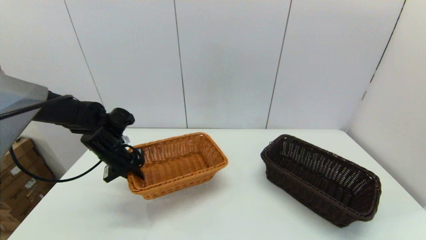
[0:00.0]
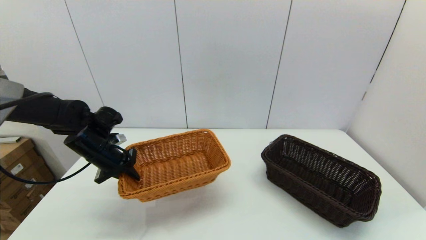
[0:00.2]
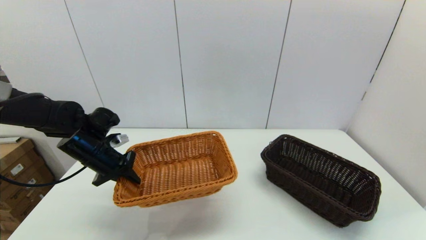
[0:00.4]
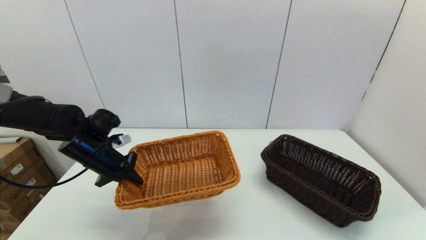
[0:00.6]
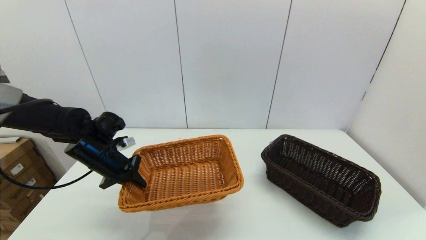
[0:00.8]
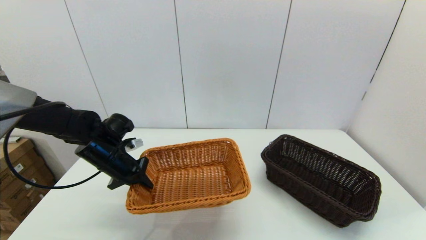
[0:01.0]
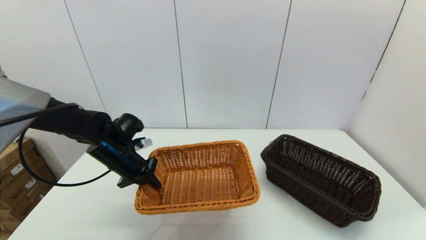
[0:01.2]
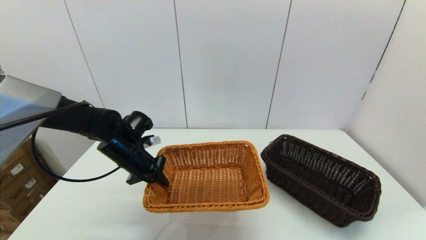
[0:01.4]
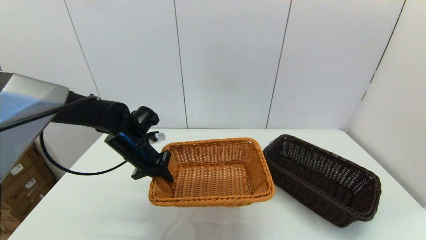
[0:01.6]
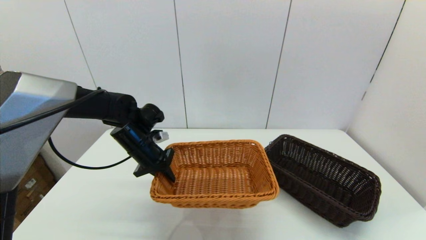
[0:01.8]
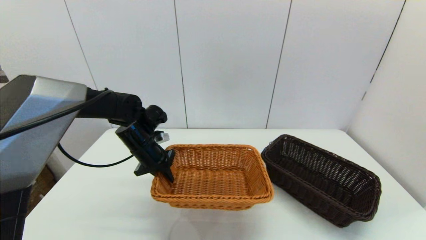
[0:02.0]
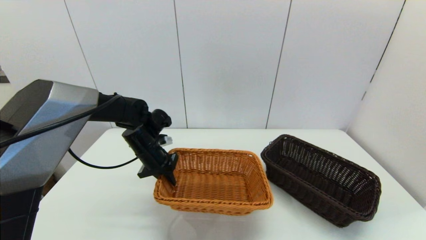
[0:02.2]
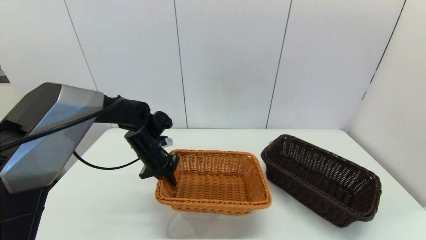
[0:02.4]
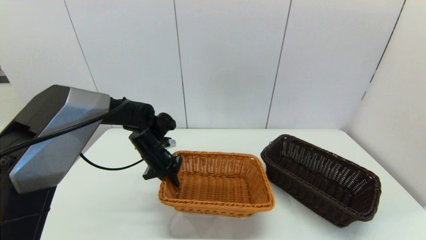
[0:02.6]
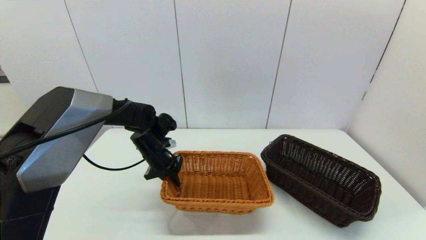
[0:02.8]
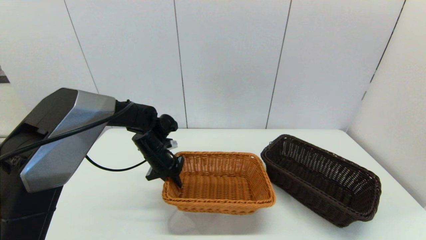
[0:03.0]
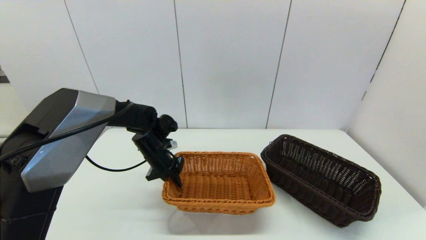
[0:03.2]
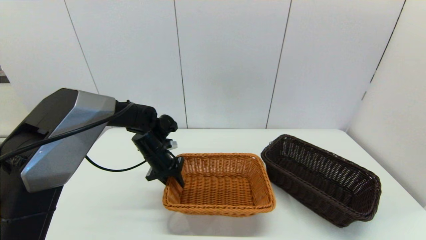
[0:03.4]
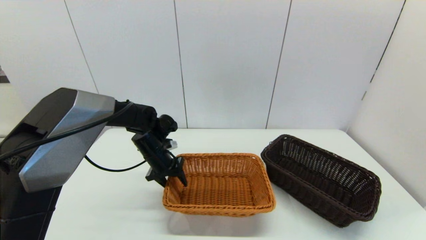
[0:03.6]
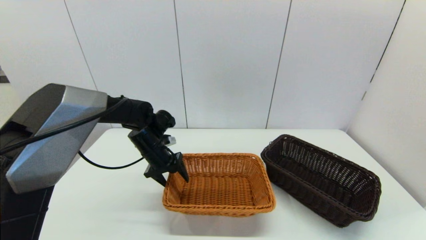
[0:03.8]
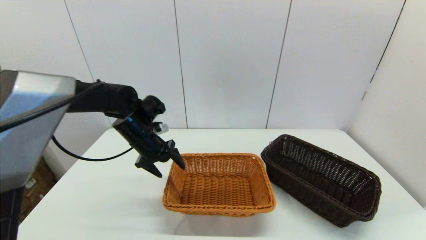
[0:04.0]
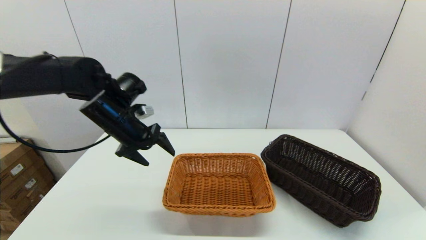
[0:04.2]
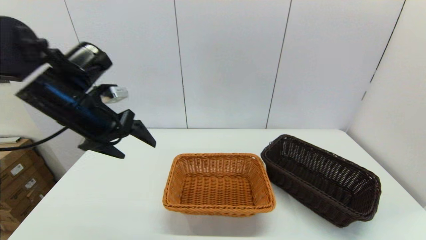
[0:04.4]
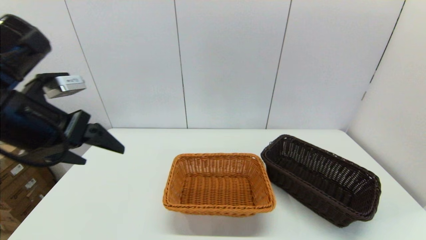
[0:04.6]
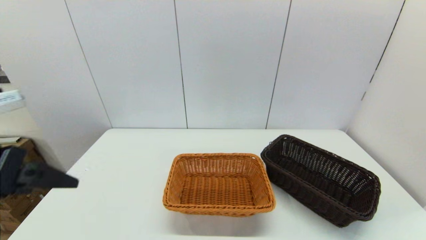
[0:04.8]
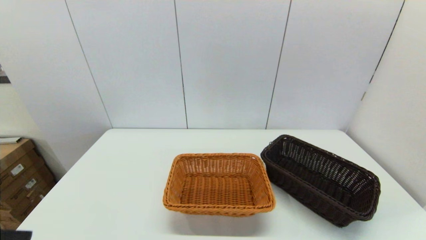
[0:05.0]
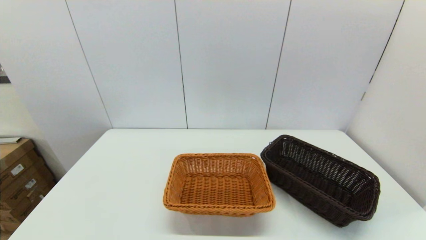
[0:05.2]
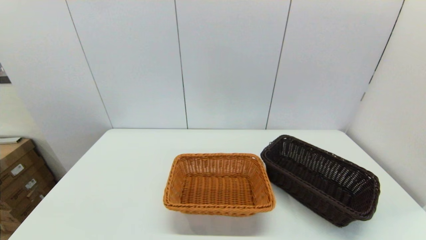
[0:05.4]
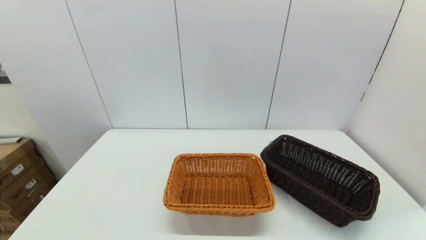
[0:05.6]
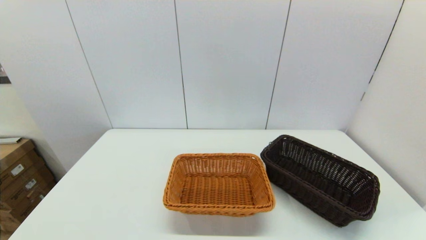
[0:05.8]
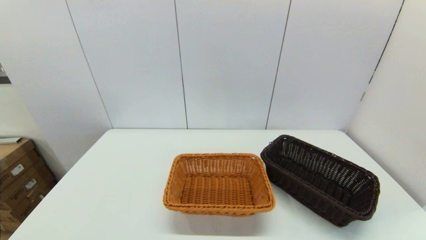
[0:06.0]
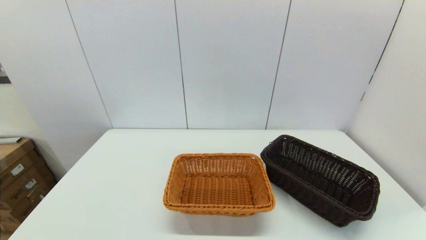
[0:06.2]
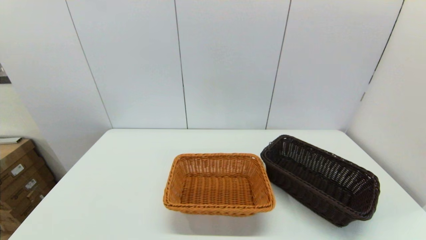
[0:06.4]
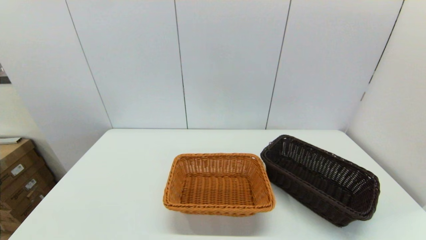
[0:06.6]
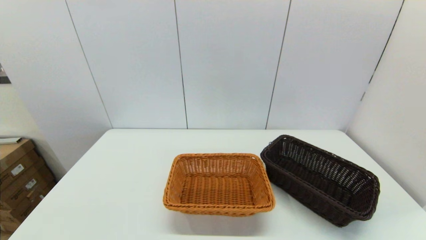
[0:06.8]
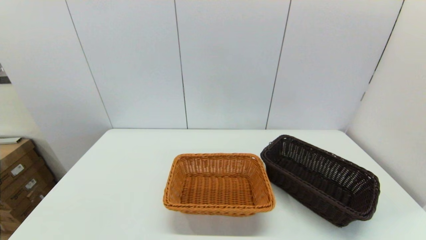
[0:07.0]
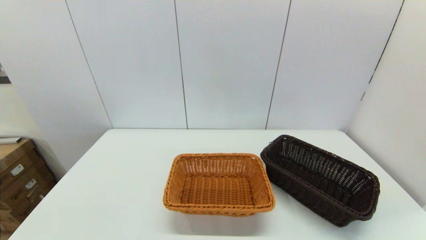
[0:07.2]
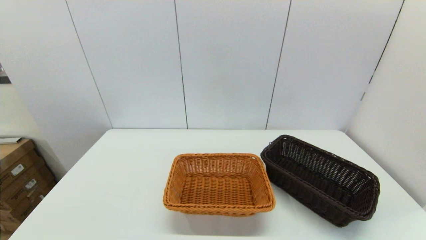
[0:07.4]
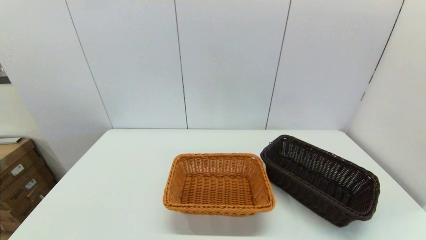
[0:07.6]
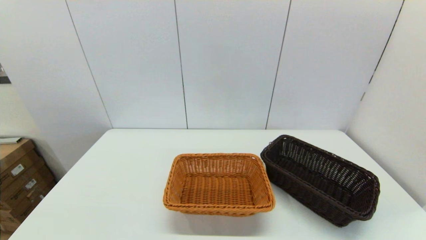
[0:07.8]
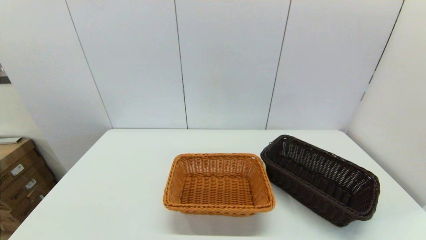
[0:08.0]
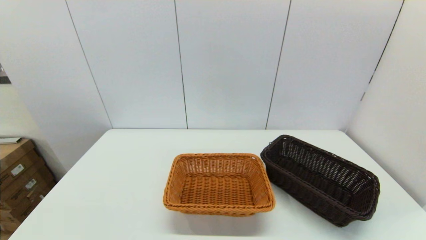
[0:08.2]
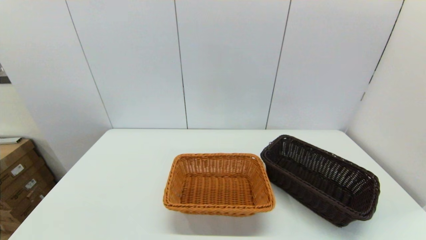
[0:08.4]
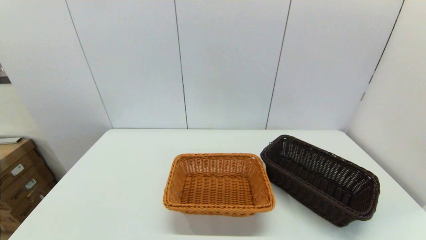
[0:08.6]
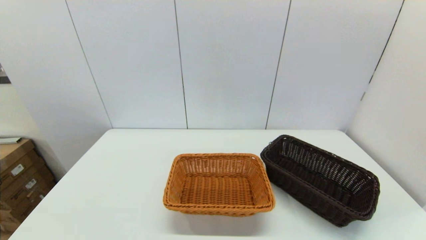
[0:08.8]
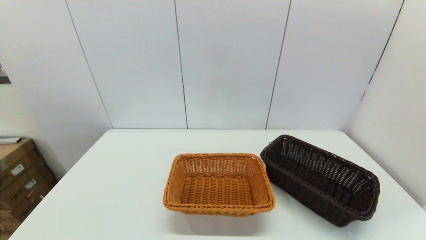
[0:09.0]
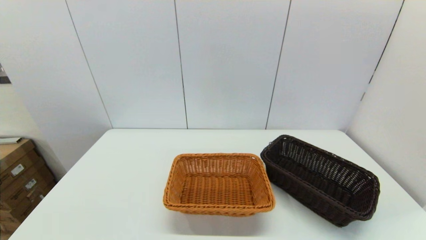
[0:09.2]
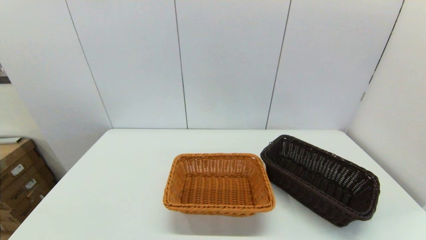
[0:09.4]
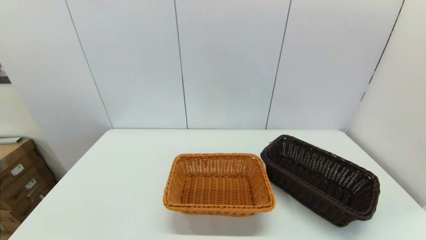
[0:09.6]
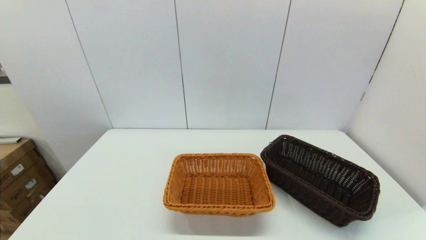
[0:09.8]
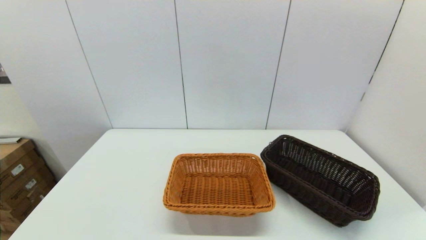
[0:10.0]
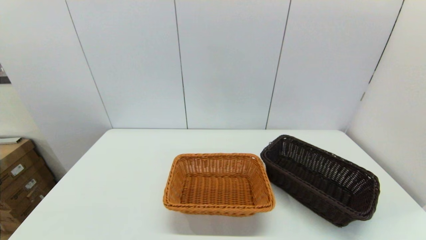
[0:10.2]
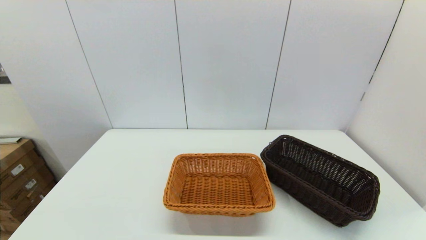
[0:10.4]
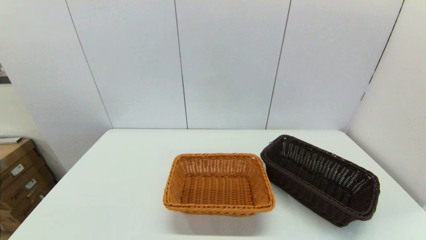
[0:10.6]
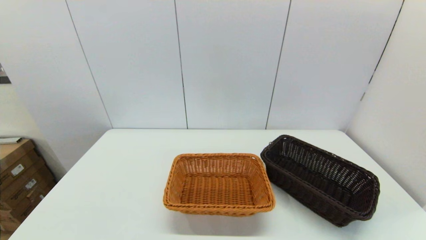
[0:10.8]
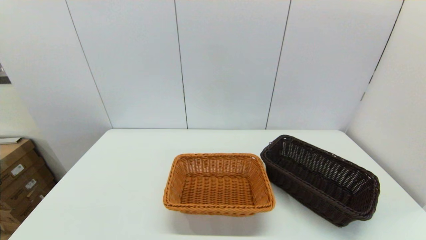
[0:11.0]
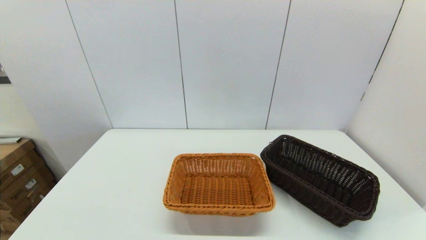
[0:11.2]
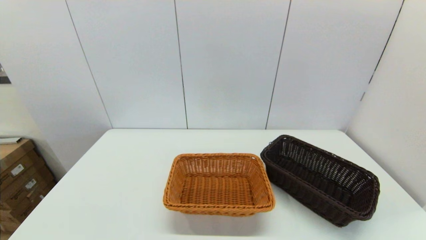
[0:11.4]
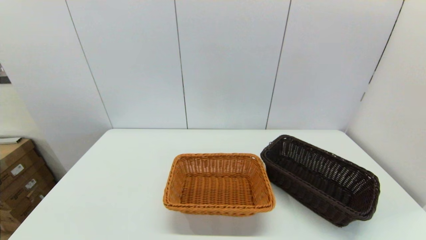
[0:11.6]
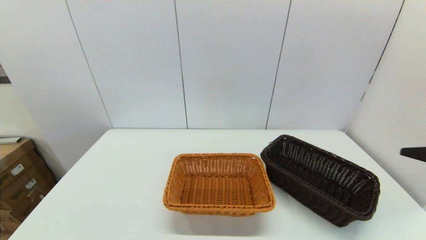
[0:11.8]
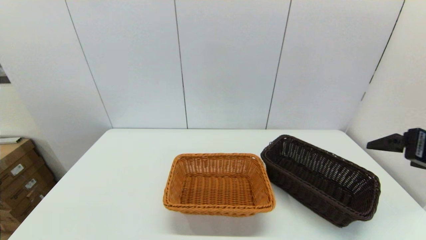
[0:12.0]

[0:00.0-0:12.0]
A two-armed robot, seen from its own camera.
Task of the whole recording: stack a basket on top of another basket.
Step, 0:00.2 to 0:03.8: Place the light basket on the middle of the table with the left gripper.
0:00.0 to 0:01.6: The left gripper is displaced to the right by about 5 cm.
0:01.6 to 0:03.0: The left gripper changes place by some 5 cm.
0:03.0 to 0:04.4: The left gripper moves upward and backward, some 25 cm, and opens.
0:04.4 to 0:06.0: The left gripper is displaced backward and downward by approximately 35 cm.
0:07.6 to 0:09.0: The two grippers keep their place.
0:10.4 to 0:12.0: The right gripper shifts approximately 25 cm forward and upward.

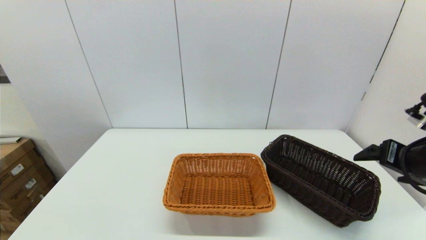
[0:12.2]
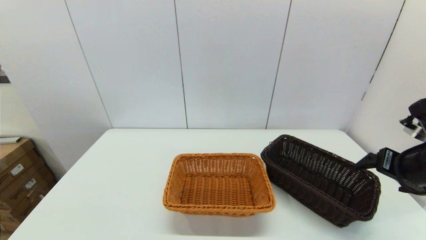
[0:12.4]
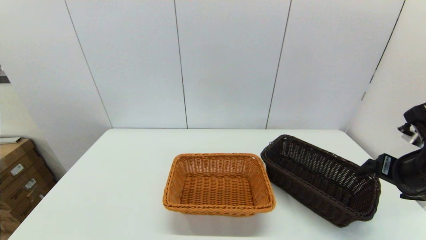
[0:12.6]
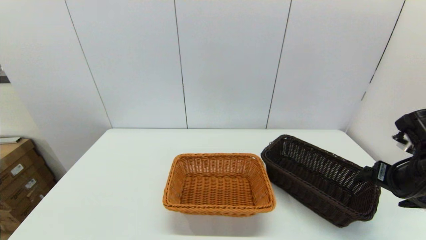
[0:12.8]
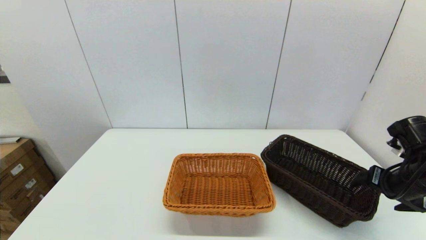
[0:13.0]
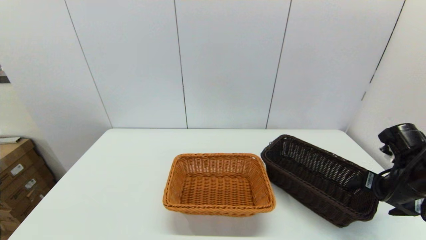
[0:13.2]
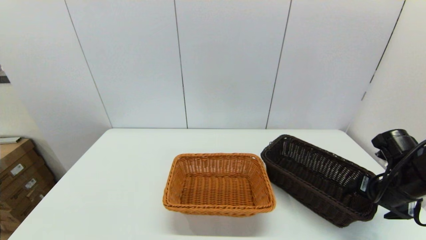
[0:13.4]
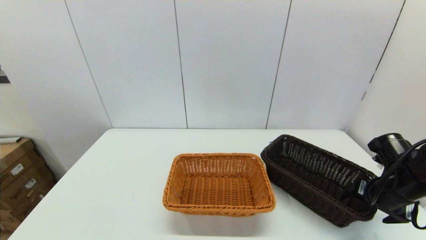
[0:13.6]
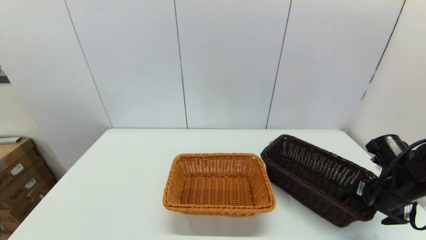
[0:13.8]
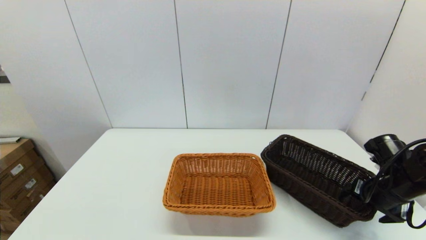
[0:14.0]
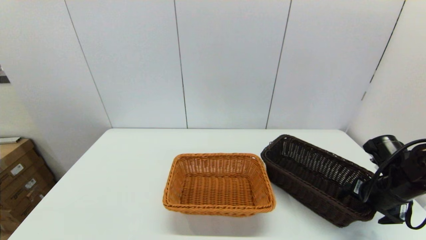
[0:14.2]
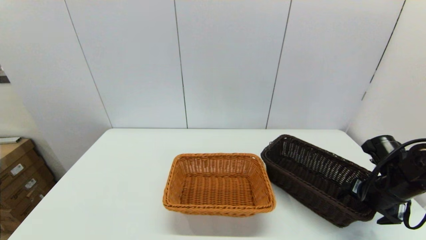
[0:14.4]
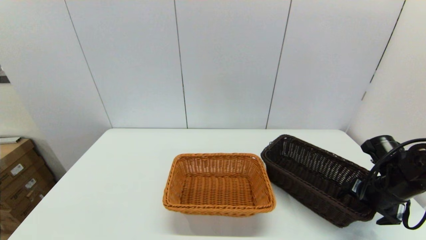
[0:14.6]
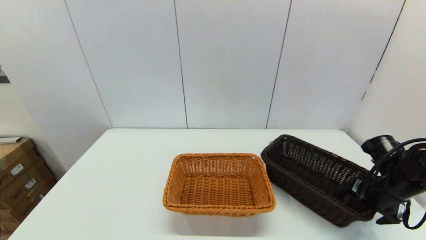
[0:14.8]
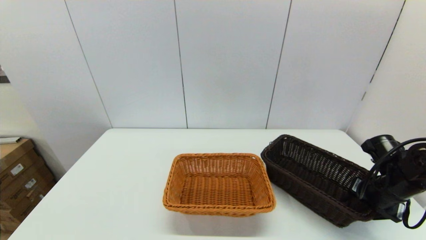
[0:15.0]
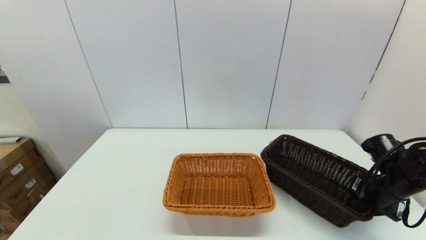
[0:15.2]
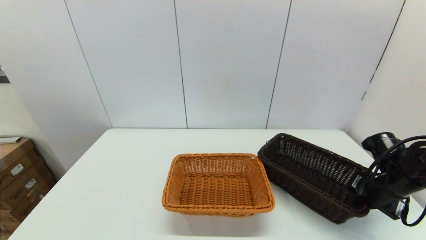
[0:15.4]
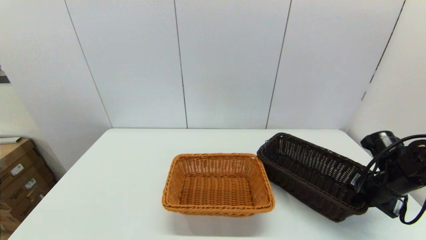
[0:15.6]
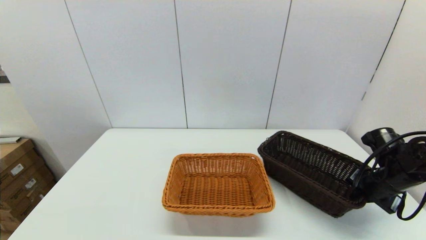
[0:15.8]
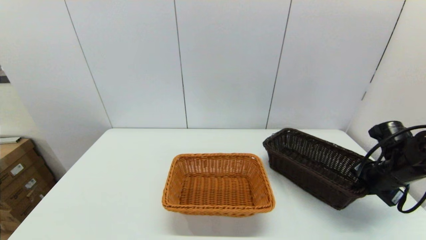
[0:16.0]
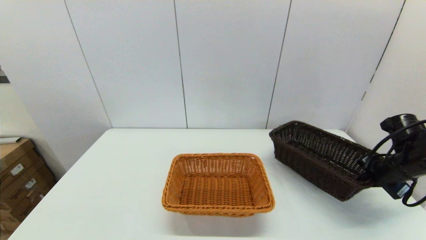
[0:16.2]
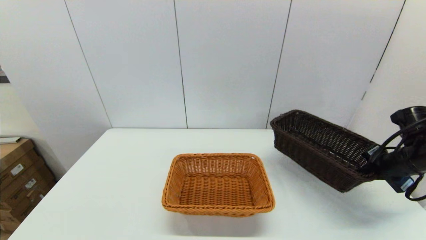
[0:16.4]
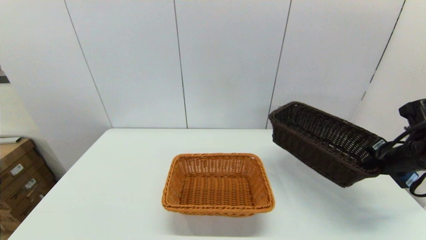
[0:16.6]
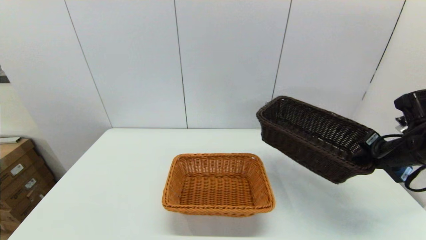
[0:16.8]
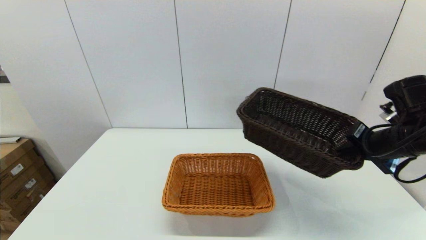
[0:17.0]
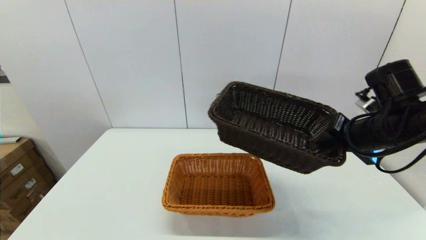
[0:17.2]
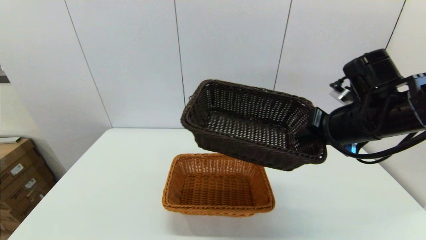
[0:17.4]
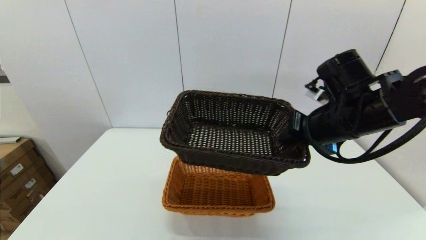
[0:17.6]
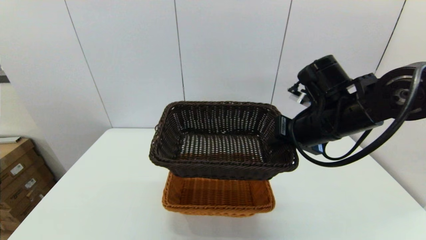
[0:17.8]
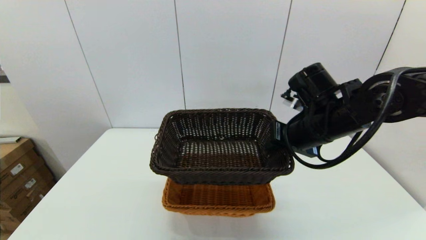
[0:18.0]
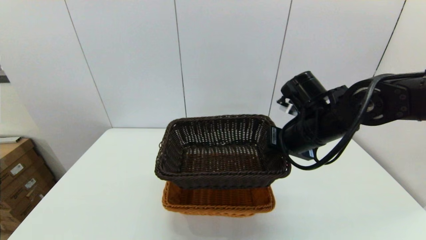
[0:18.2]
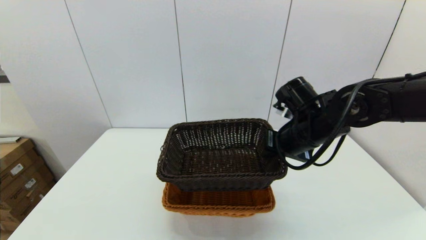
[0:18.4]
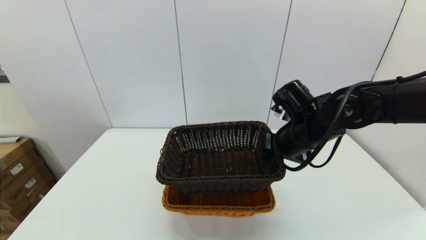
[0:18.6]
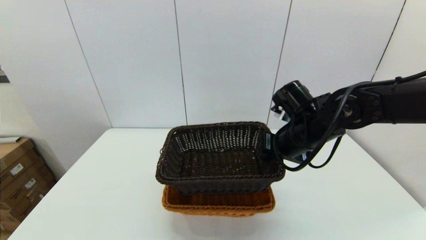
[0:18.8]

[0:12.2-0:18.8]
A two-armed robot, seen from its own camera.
Task of the whole recording: stack a basket on top of another basket.
Step, 0:12.2 to 0:15.6: Grasp the dark basket with the right gripper.
0:12.2 to 0:13.8: The right gripper goes about 10 cm downward.
0:13.8 to 0:15.4: The right gripper closes its fingers.
0:15.4 to 0:17.2: The right gripper shifts some 15 cm upward and to the left.
0:17.2 to 0:18.8: The right gripper goes roughly 10 cm to the left.
